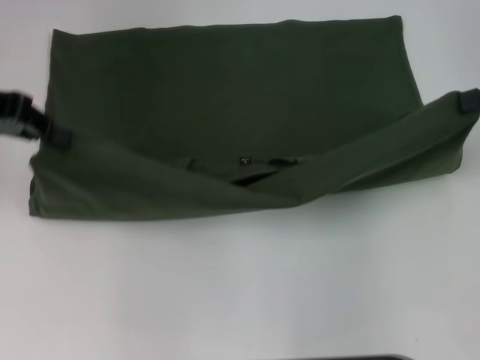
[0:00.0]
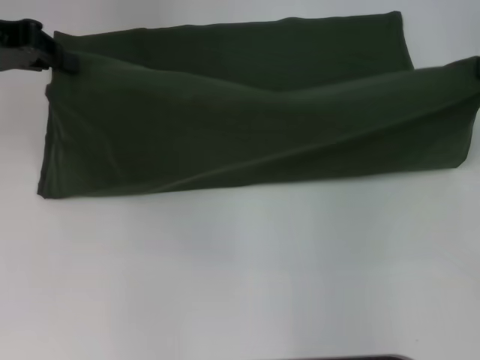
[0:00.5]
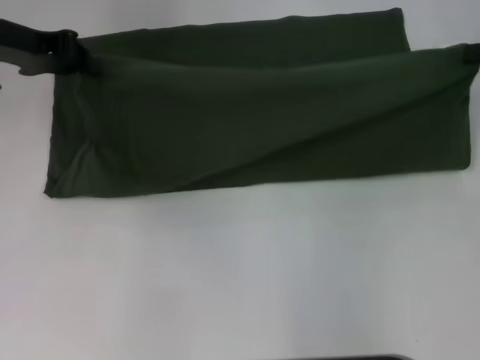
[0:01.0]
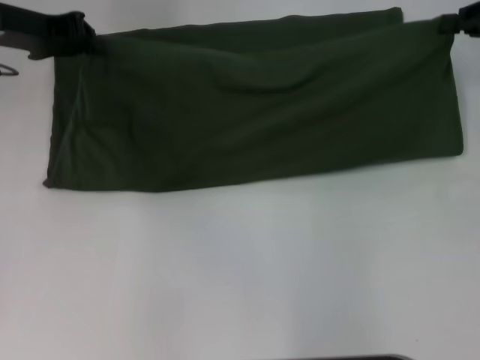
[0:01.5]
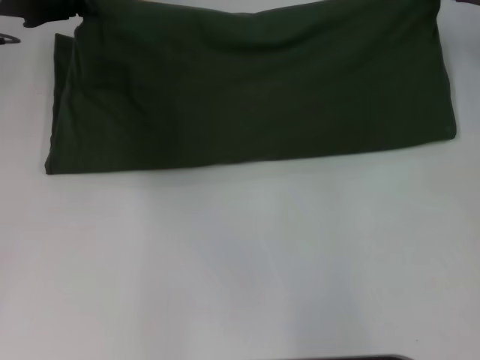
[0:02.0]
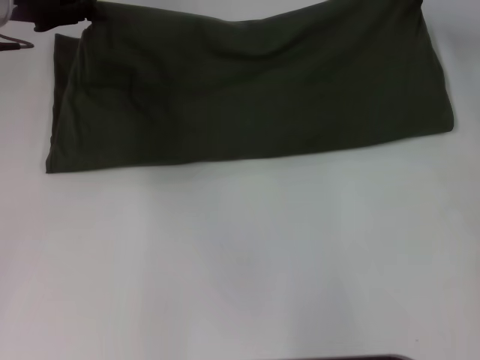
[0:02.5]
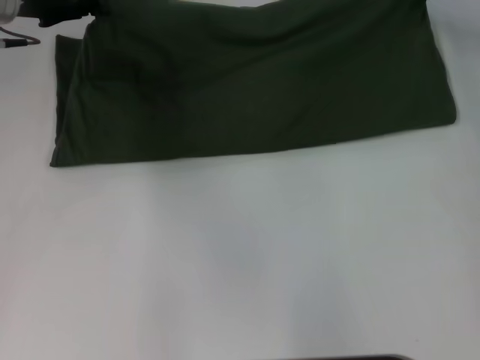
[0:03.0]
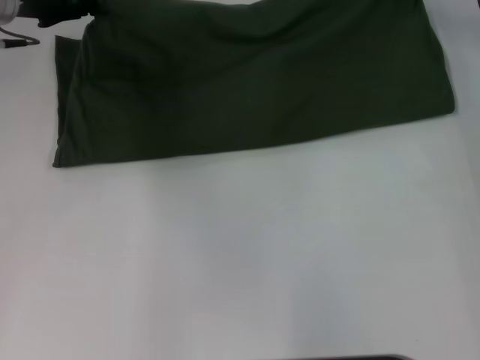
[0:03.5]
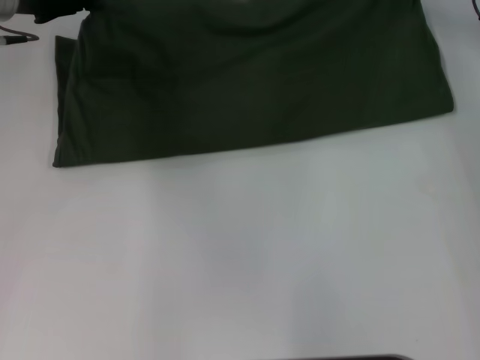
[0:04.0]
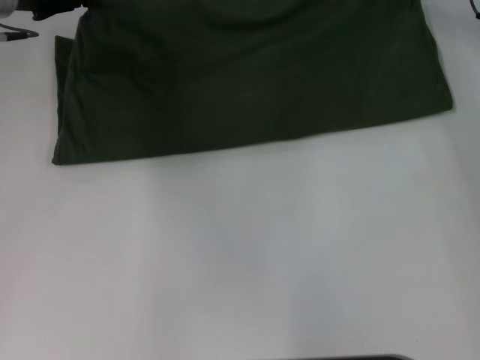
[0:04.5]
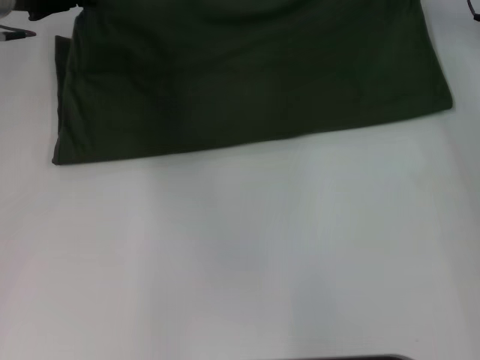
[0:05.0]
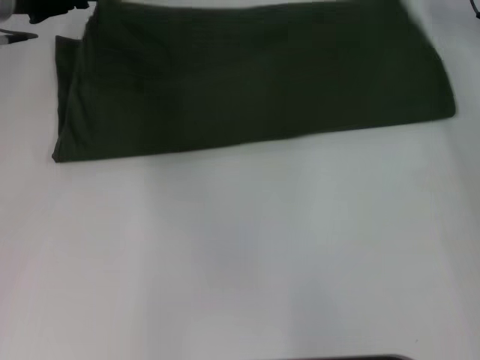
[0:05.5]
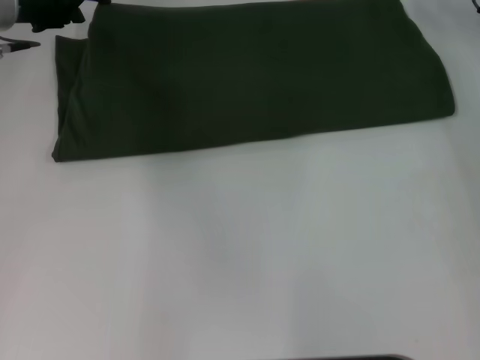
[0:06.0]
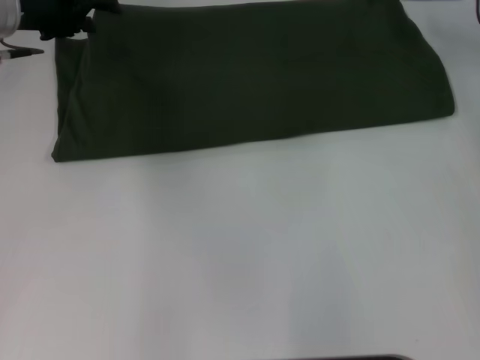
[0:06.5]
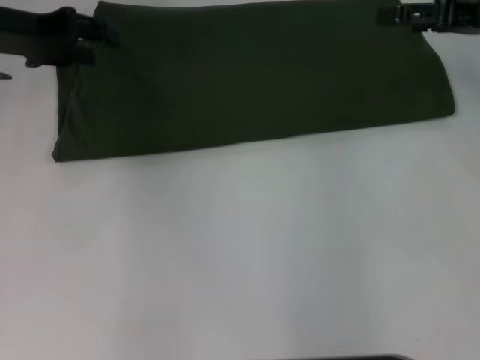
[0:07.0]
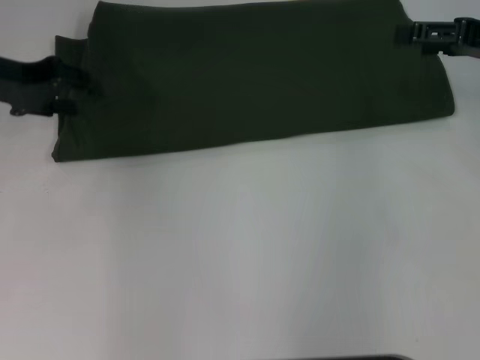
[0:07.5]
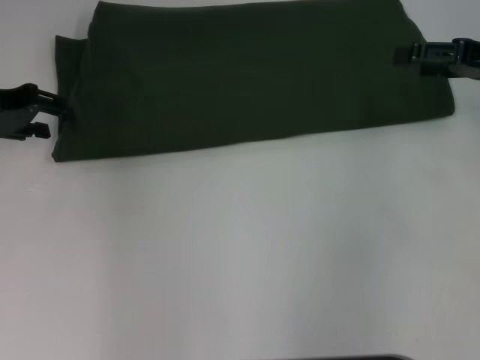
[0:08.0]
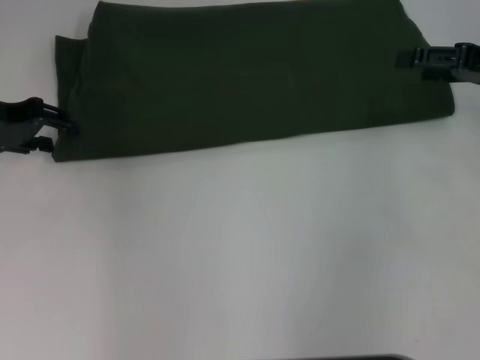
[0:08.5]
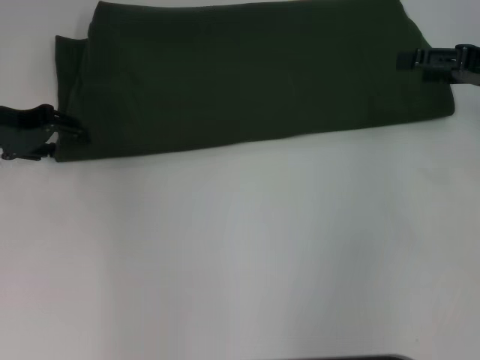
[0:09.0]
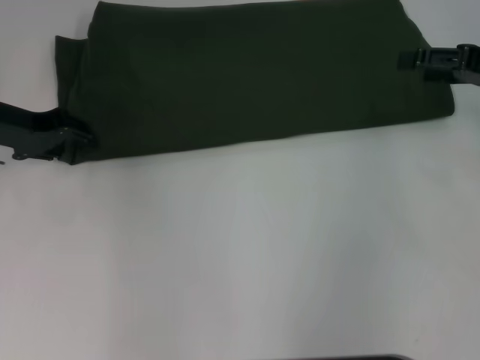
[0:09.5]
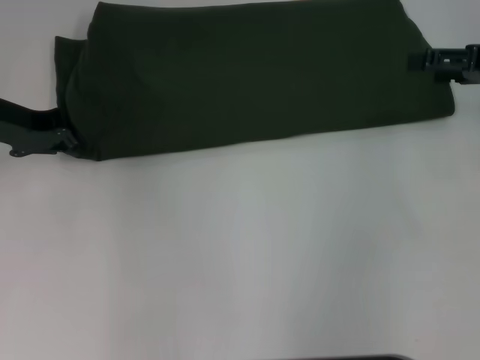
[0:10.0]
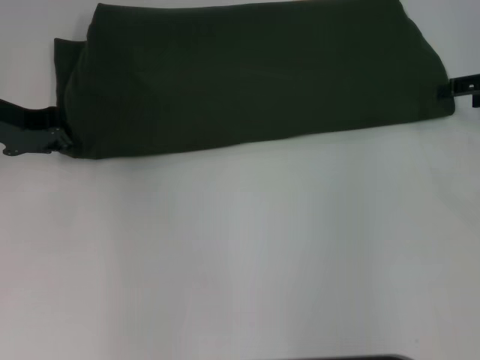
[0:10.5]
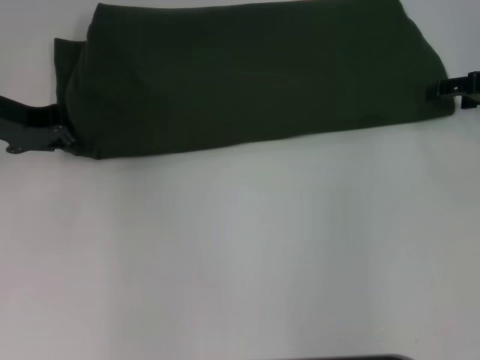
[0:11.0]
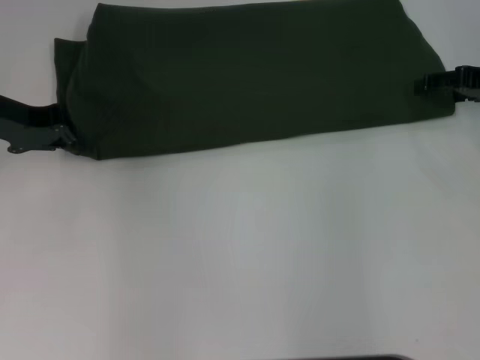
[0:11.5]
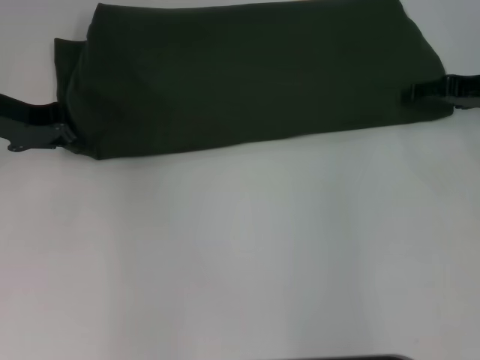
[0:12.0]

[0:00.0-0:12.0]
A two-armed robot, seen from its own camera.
Step, 0.0 to 5.5 s: Fold the clothes with your left hand.
Step, 0.0 to 5.5 s: Fold the clothes with your right hand.
0.0 to 2.0 s: Both grippers travel together forward, some 10 cm.
2.0 to 4.0 s: The right gripper goes approximately 5 cm to the left.
4.0 to 6.0 s: The left gripper opens its fingers; the right gripper opens.
6.0 to 8.0 s: The right gripper is displaced backward and to the right by approximately 15 cm, and opens its fingers. The left gripper shifts some 10 cm backward and to the left.
8.0 to 10.0 s: The left gripper closes its fingers.
10.0 to 12.0 s: The grippers move only a little.

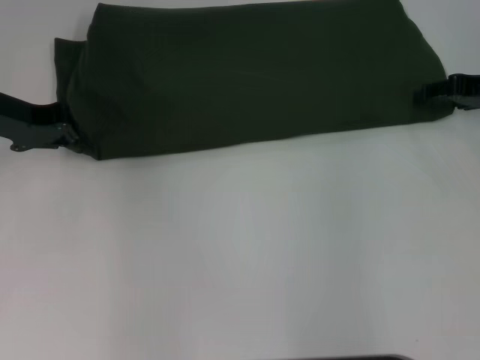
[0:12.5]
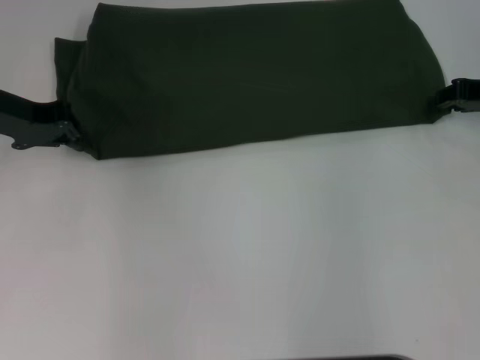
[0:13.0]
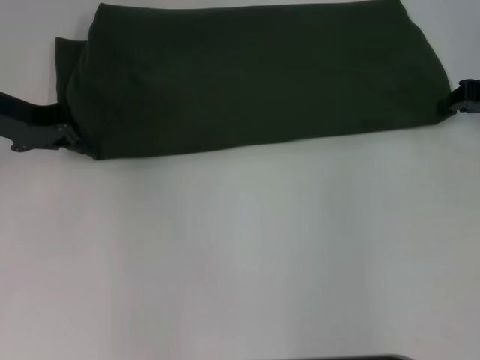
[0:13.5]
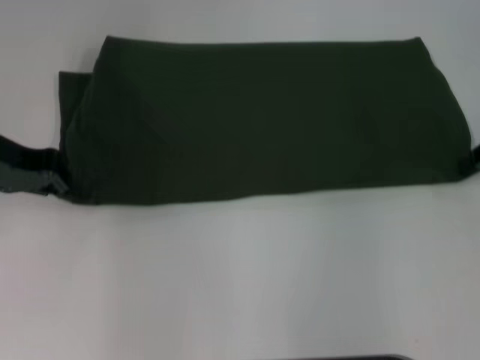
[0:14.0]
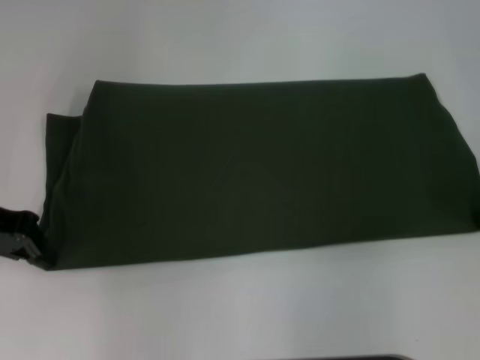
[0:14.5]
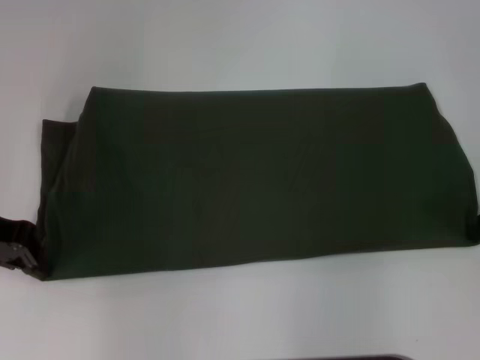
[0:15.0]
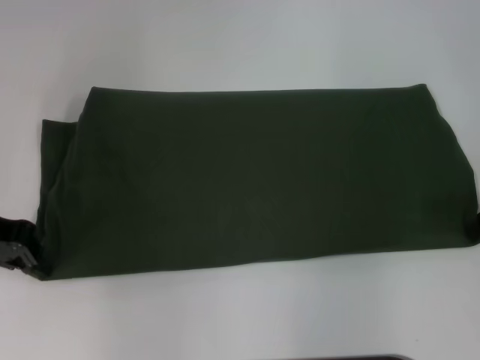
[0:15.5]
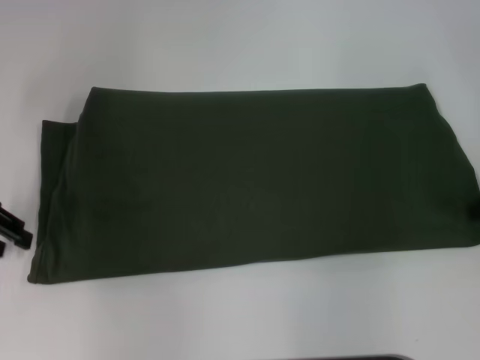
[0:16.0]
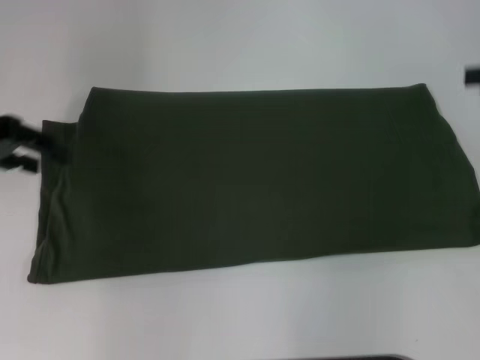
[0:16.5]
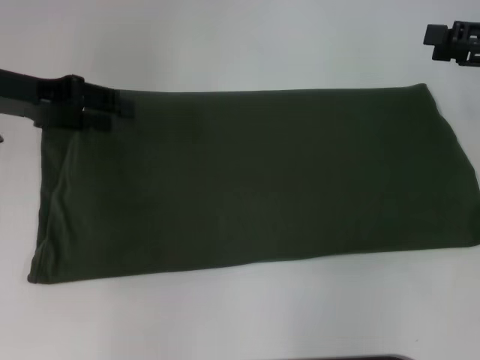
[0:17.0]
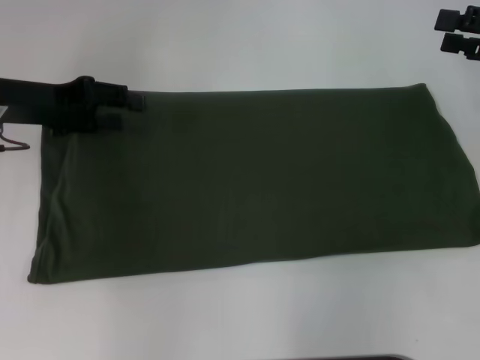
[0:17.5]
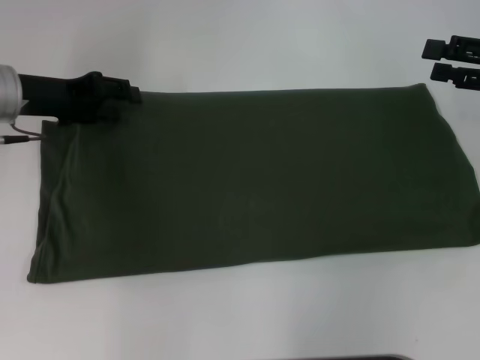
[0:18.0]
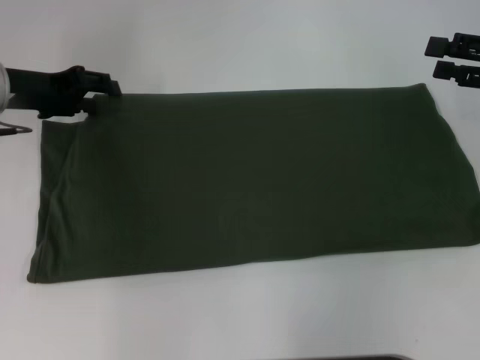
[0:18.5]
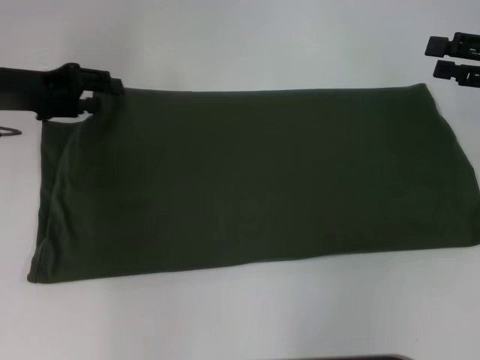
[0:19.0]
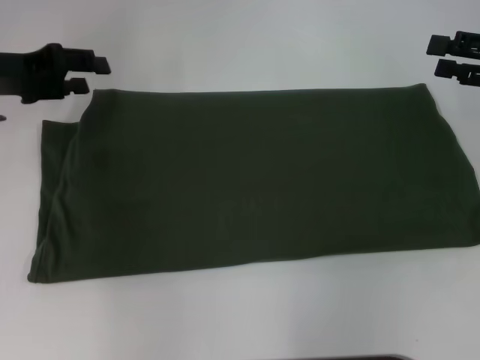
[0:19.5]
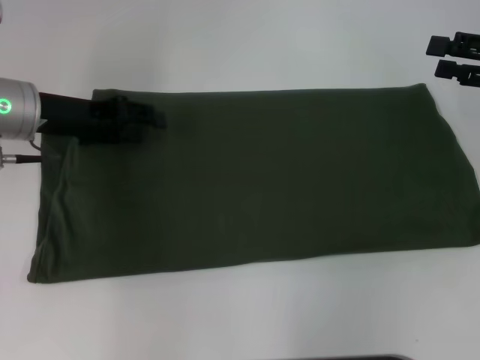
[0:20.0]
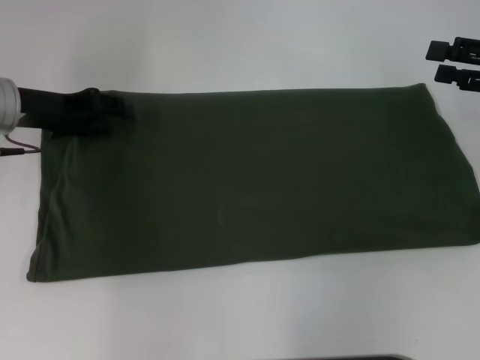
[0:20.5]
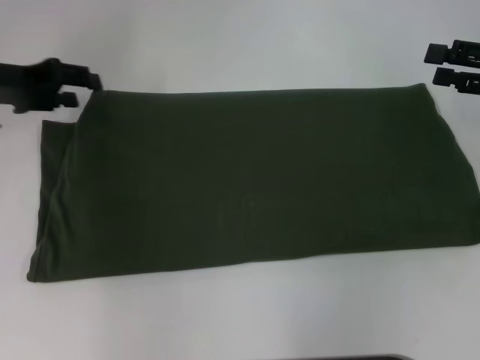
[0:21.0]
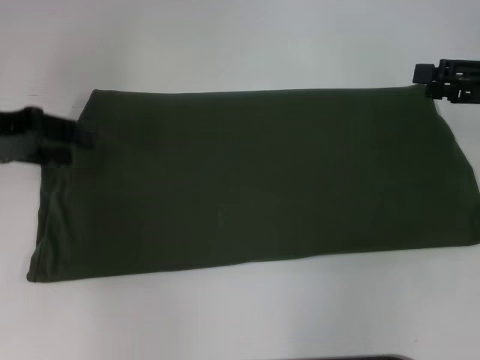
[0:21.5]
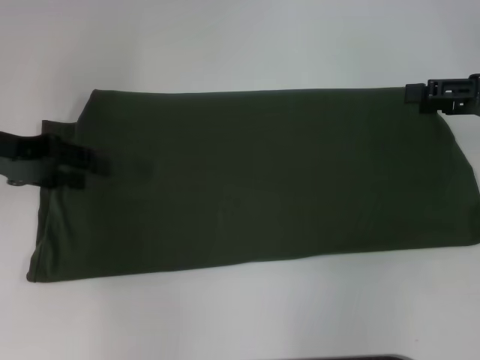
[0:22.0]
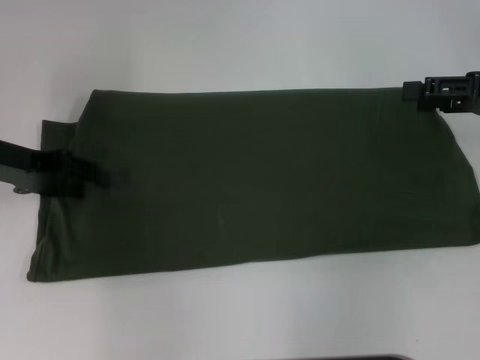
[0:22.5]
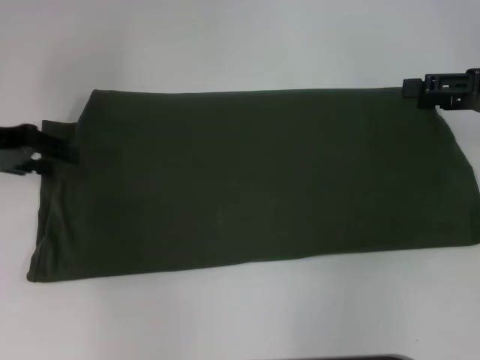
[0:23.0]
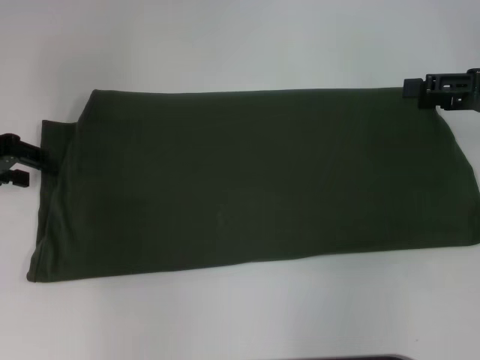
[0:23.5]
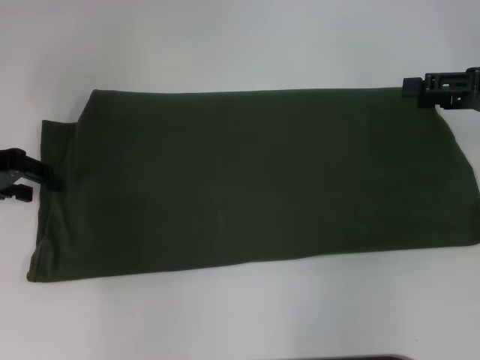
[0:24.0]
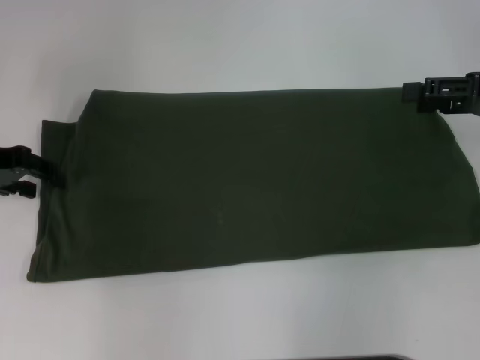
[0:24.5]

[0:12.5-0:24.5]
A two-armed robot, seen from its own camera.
Step, 12.5 to 15.5 s: Pull the clothes with your left hand.
Step, 12.5 to 15.5 s: Pull the clothes with your right hand.
12.5 to 14.5 s: Both grippers travel together backward, roughly 5 cm. The right gripper closes.
14.5 to 16.5 s: Both grippers move upward, approximately 5 cm. The left gripper opens its fingers. The right gripper opens up.
16.5 to 18.5 s: The left gripper heads downward, covering some 5 cm. The right gripper changes place by some 5 cm.
18.5 to 20.5 s: The grippers move only a little.
22.5 to 24.5 s: The grippers move only a little.

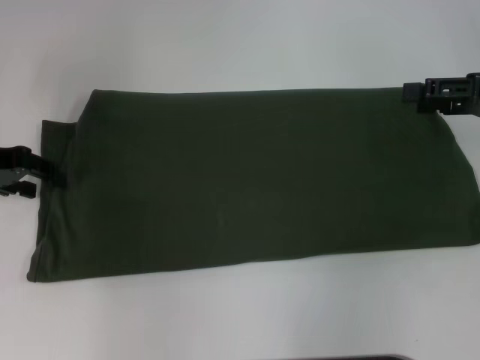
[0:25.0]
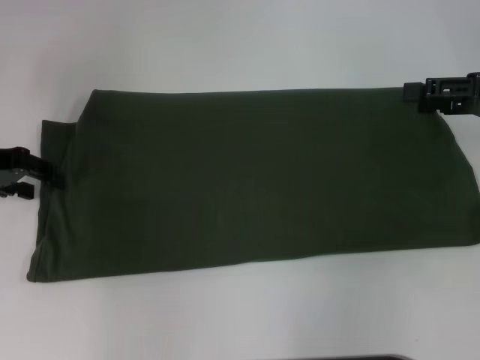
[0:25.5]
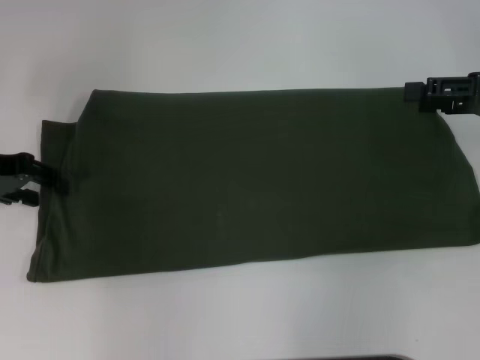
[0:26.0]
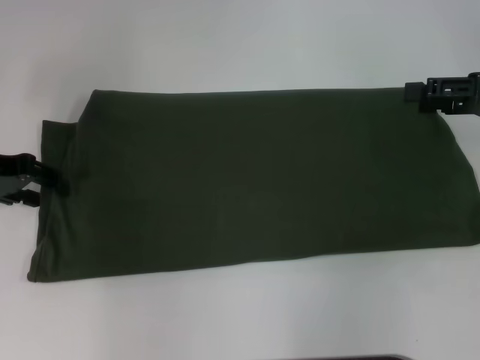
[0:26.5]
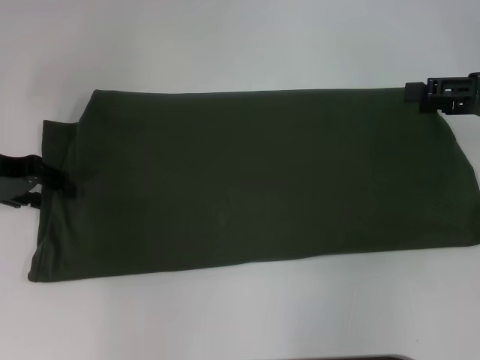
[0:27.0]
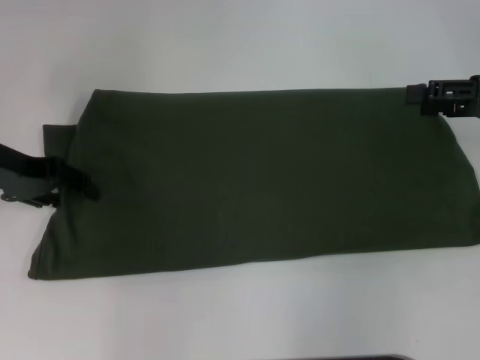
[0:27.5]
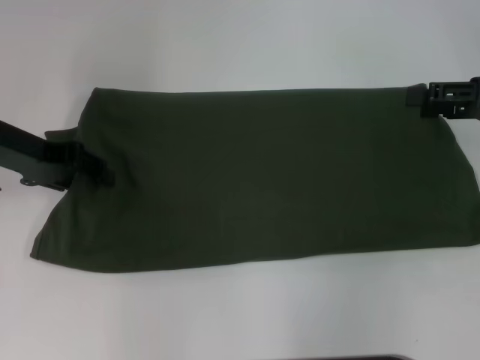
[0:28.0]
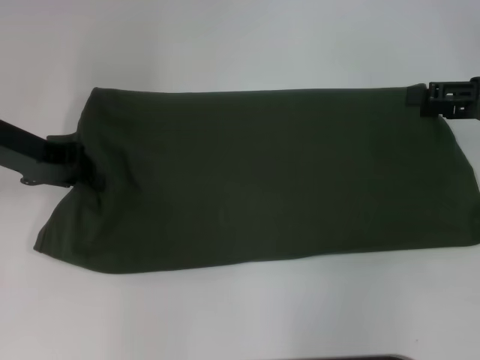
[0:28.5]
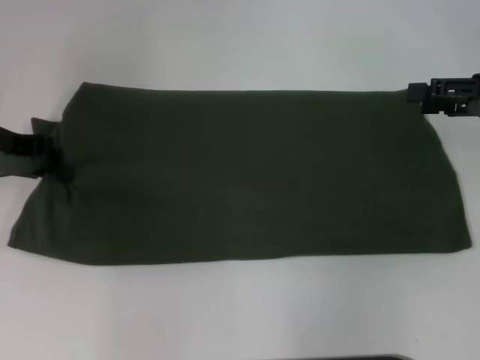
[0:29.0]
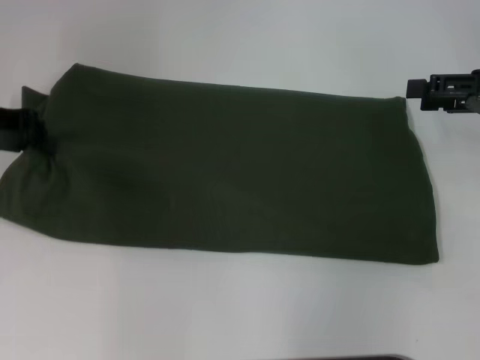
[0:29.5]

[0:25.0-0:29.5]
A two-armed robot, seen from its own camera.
25.0 to 27.0 s: The grippers make only small movements.
27.0 to 29.5 s: The left gripper closes up.
